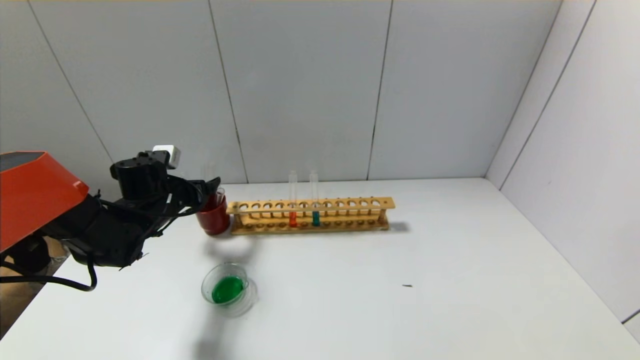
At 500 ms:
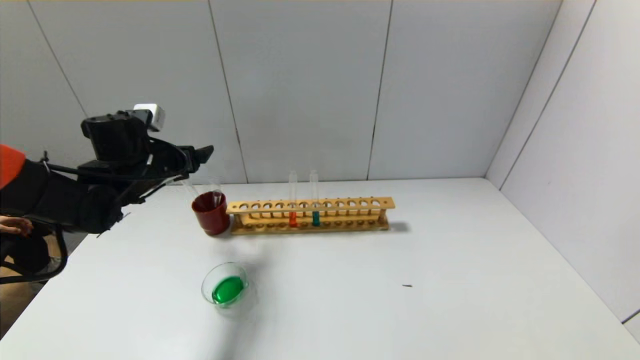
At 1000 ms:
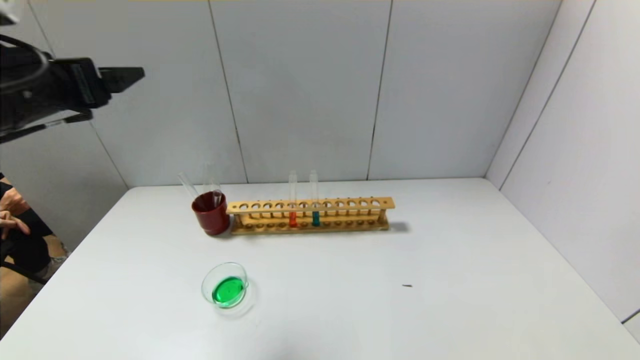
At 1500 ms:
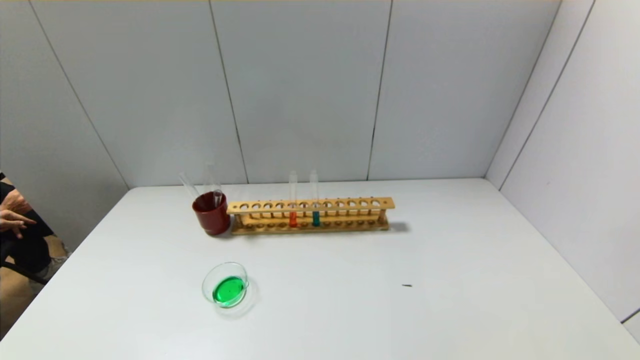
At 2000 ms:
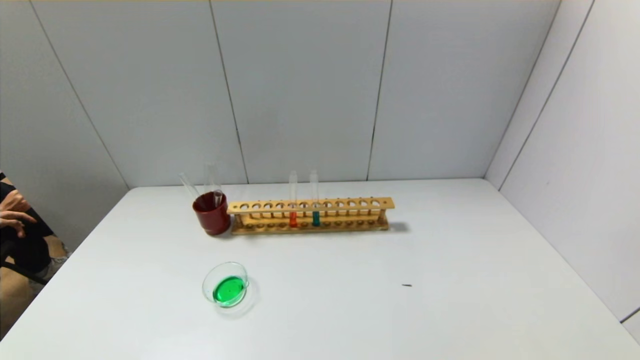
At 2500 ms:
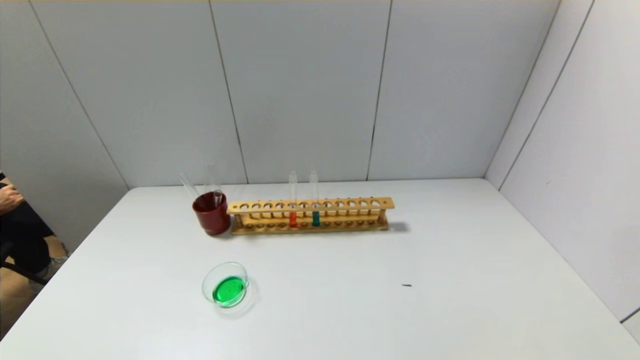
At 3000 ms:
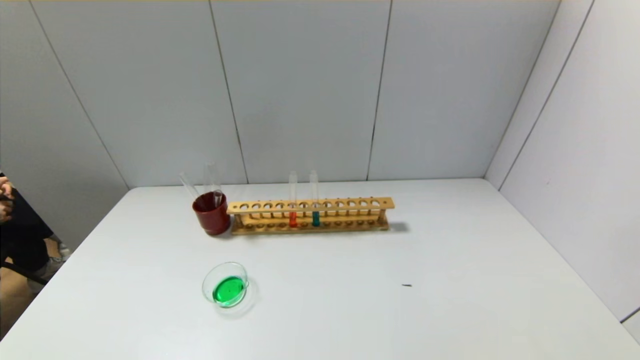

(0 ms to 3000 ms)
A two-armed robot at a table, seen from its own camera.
0 ms - 1500 ms: The left gripper shifts about 40 cm backward and upward.

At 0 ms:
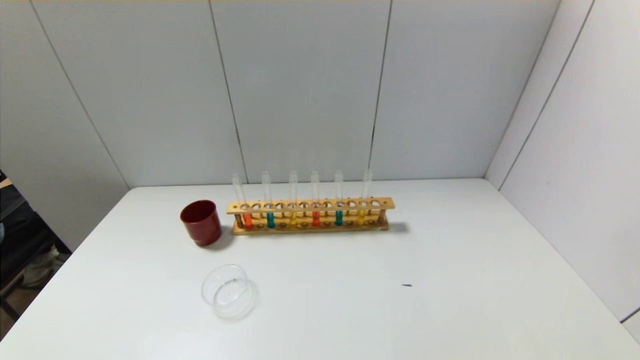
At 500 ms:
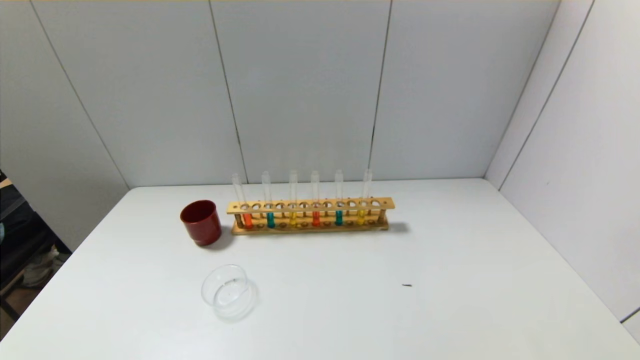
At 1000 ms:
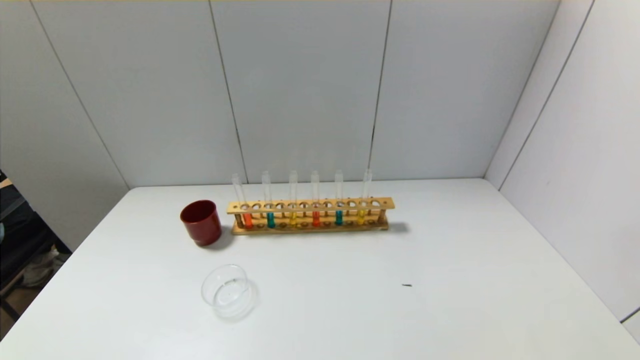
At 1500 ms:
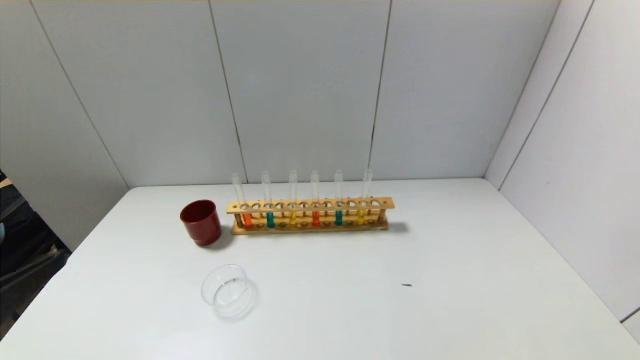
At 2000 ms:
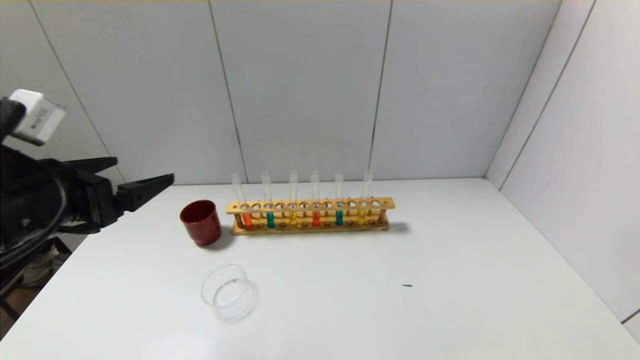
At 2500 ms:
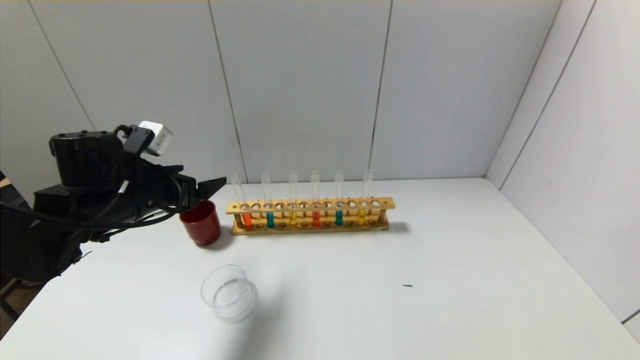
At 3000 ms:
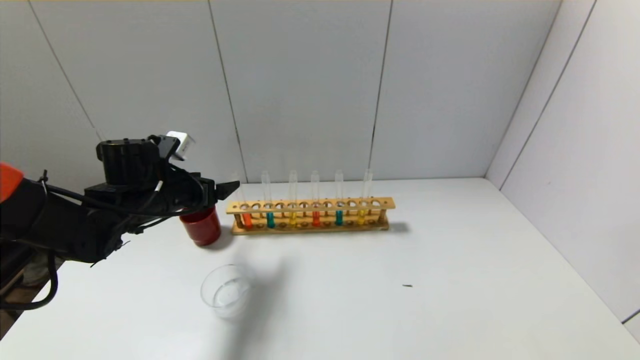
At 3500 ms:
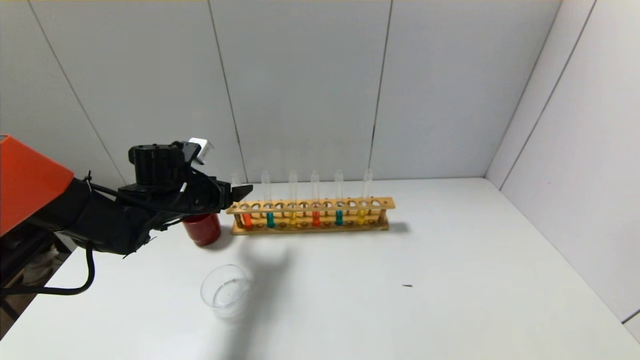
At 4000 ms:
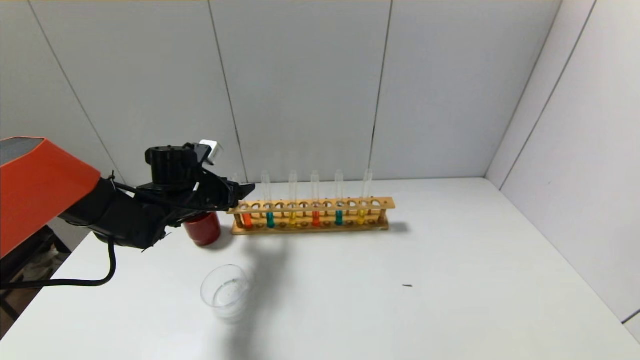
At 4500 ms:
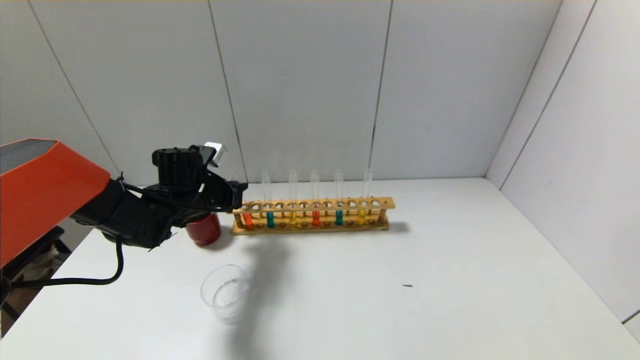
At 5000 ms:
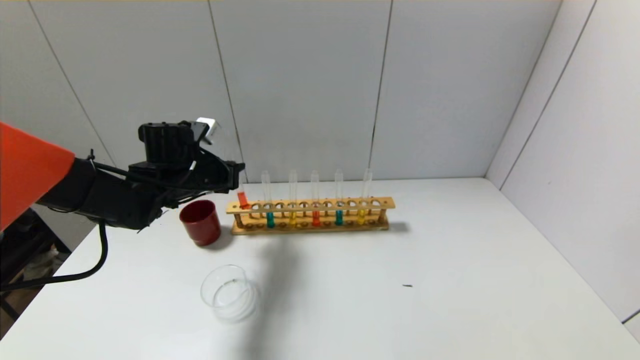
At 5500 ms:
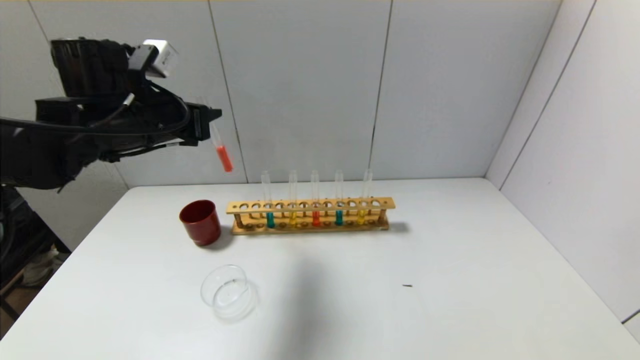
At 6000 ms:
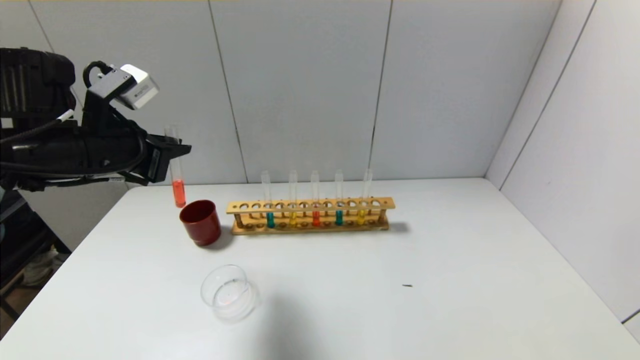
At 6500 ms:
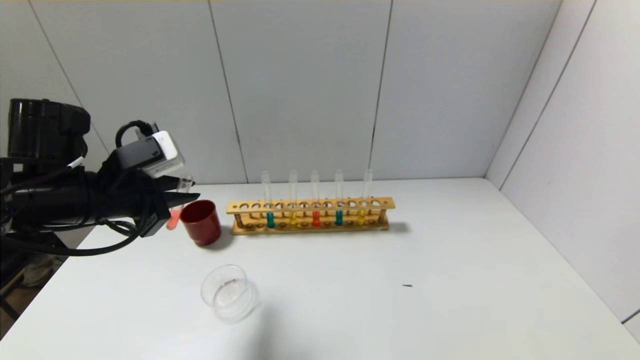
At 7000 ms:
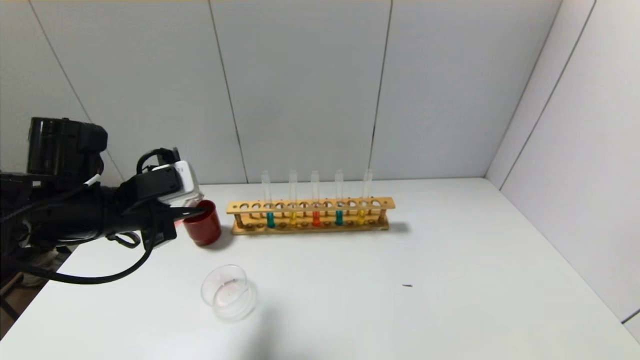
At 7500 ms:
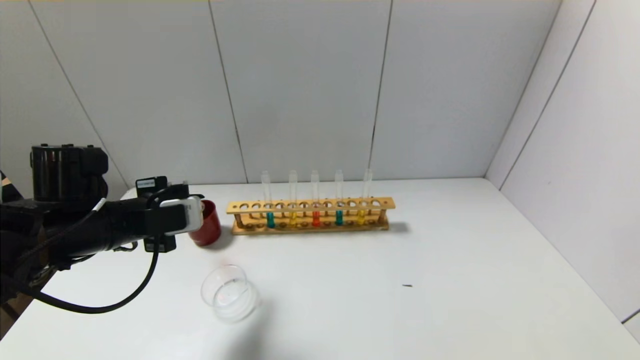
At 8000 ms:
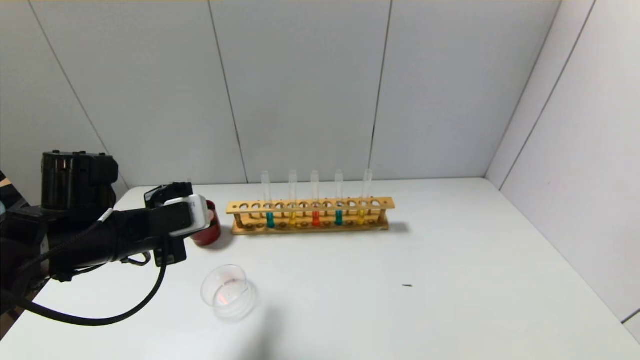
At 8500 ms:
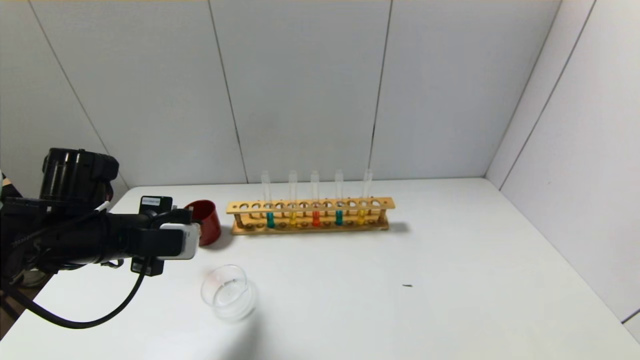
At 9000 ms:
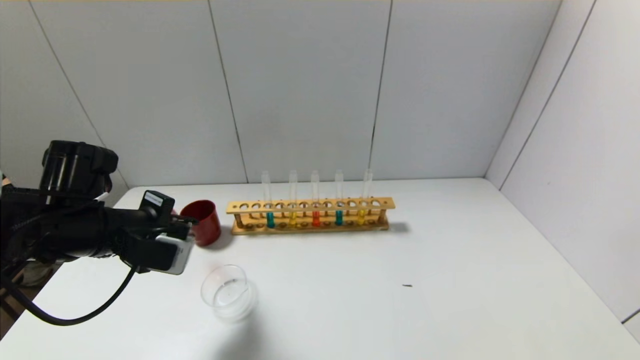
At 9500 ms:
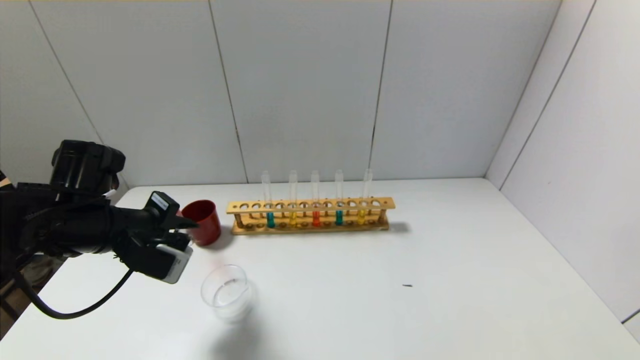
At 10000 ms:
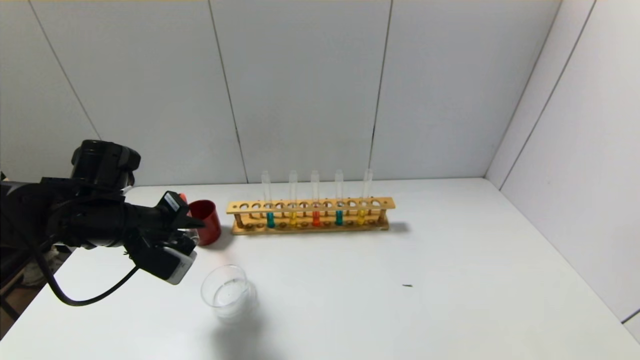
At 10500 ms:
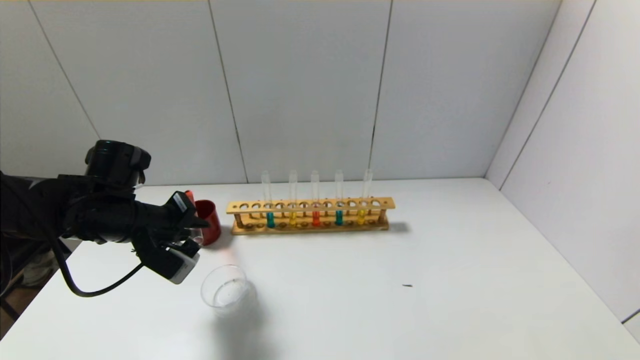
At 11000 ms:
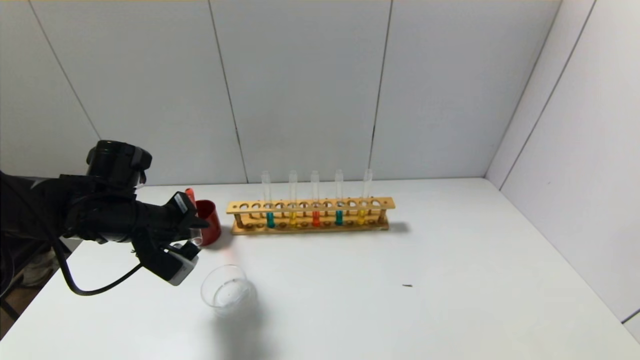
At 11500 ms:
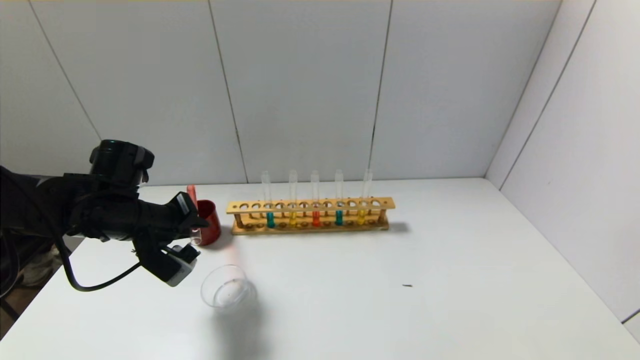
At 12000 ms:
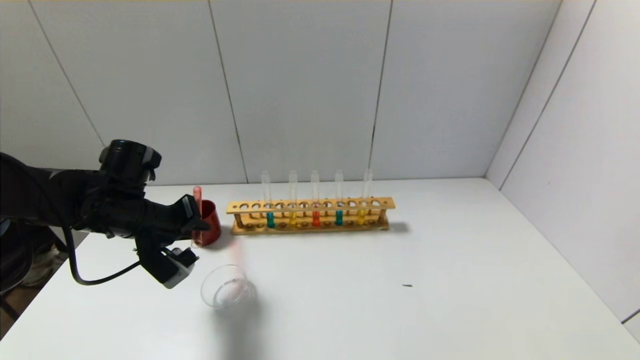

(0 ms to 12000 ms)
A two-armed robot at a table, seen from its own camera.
Step, 0 ms - 4000 ms: Grasp the red reagent with the left gripper.
0 ms - 2000 ms: The left gripper shifts some 30 cm forward and upward.
2000 ms - 4000 ms: The left gripper heads forward and downward, covering approximately 25 cm.
4000 ms - 6000 ms: The left gripper travels upward and backward by about 20 cm, and closes.
6000 ms - 8000 ms: The left gripper goes approximately 10 cm downward.
10000 ms - 12000 ms: The grippers make only small movements.

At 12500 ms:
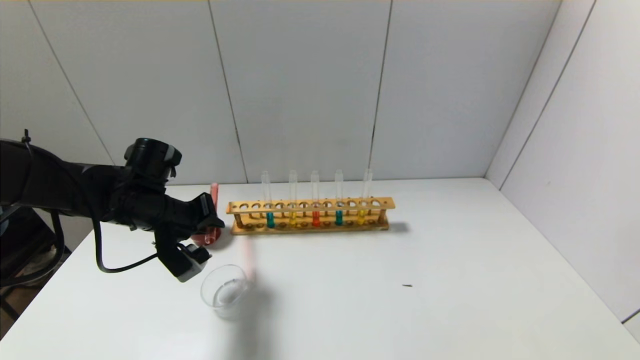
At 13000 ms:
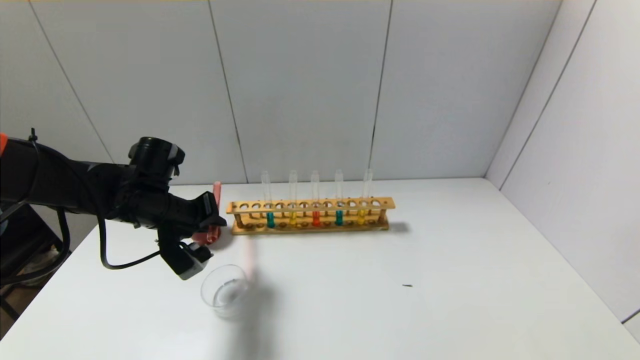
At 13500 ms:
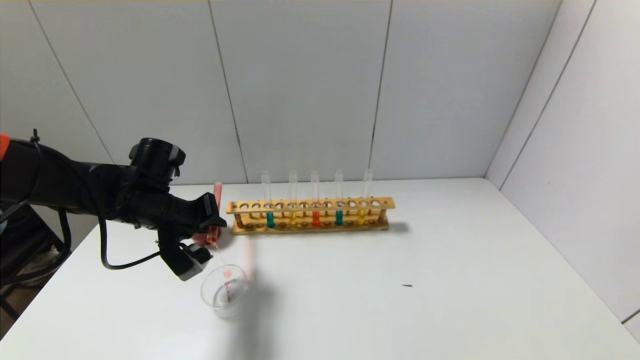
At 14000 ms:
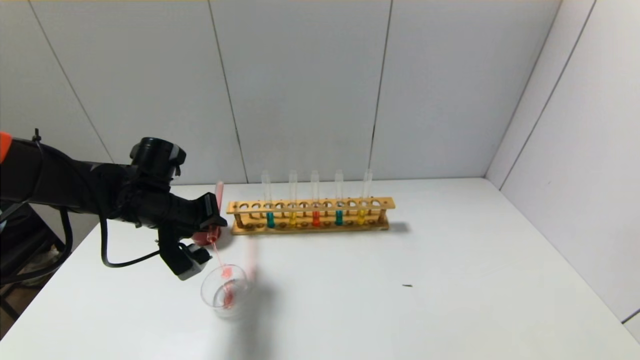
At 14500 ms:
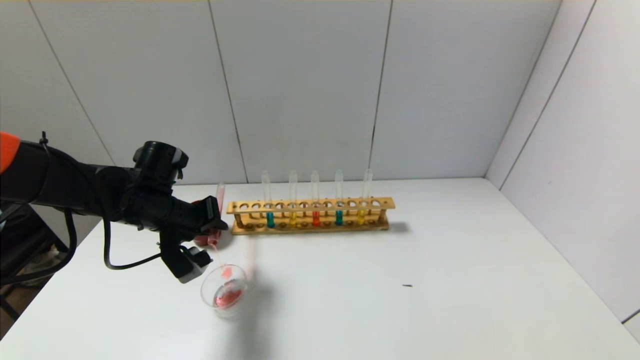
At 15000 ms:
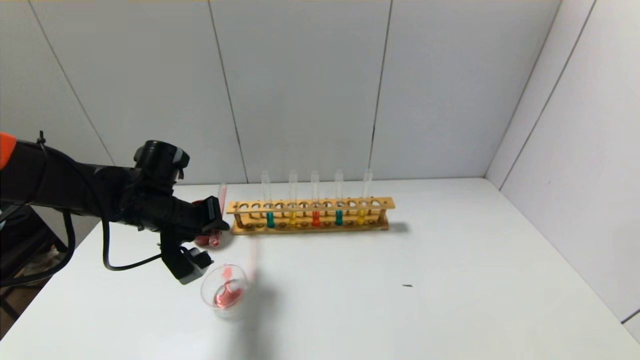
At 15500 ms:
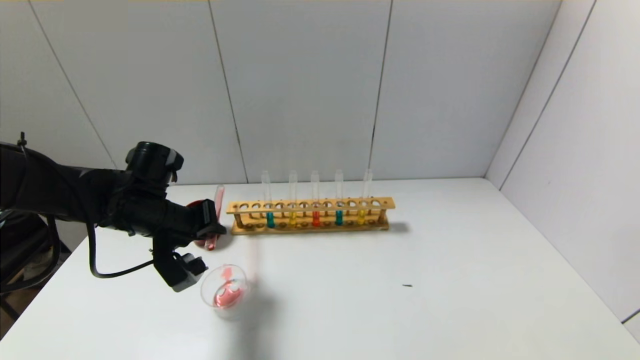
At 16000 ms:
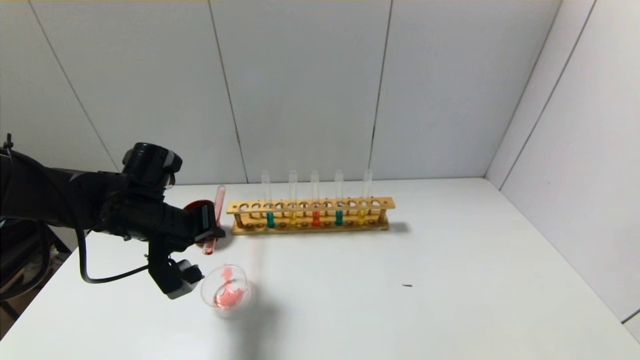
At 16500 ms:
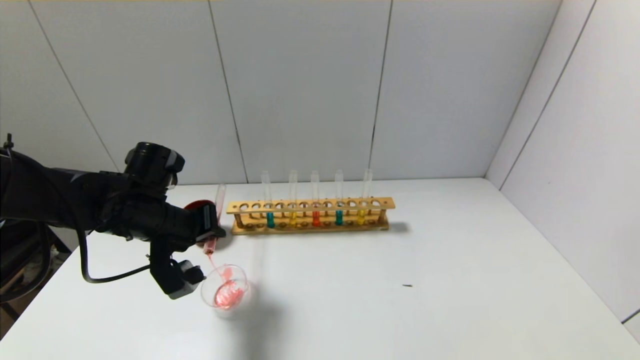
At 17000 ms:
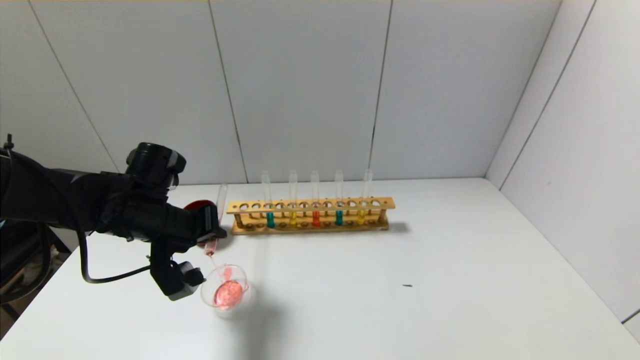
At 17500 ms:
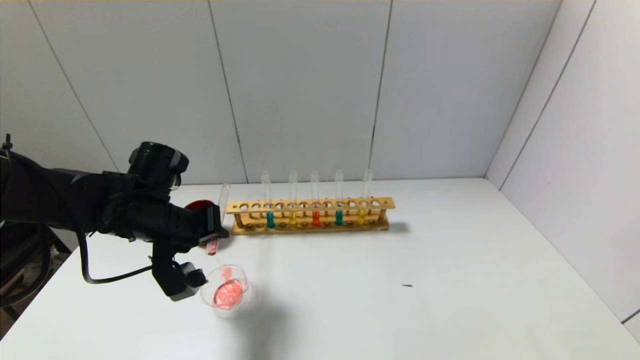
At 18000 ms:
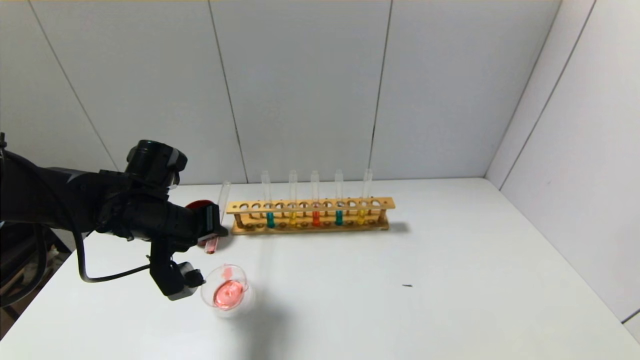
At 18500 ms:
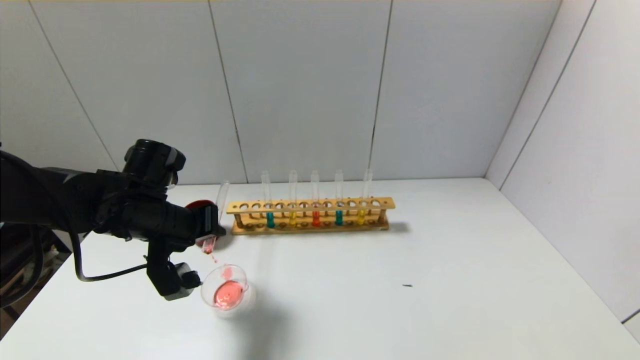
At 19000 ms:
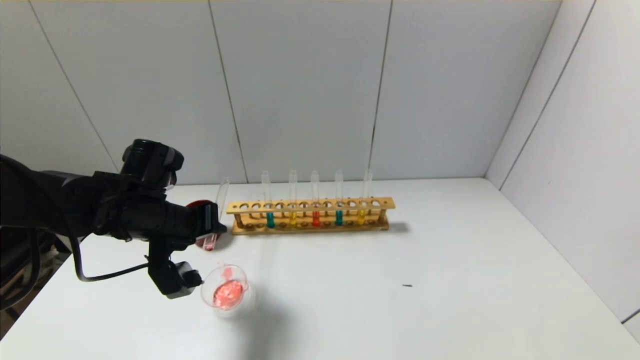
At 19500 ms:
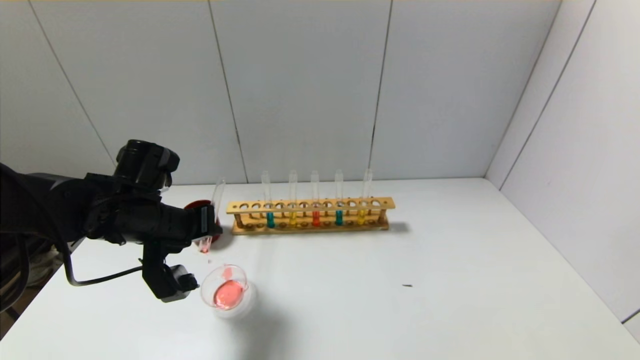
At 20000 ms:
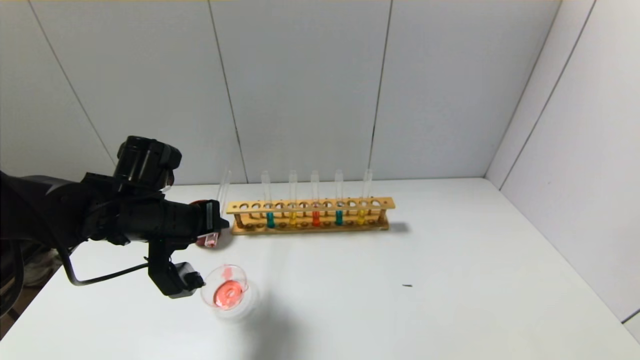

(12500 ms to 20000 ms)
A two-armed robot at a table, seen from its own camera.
12500 ms - 14500 ms: Both grippers stay about where they are.
14500 ms - 16500 ms: The grippers move only a little.
16500 ms - 18000 ms: Neither gripper changes place.
18000 ms - 20000 ms: There are only small adjustments of the grippers.
